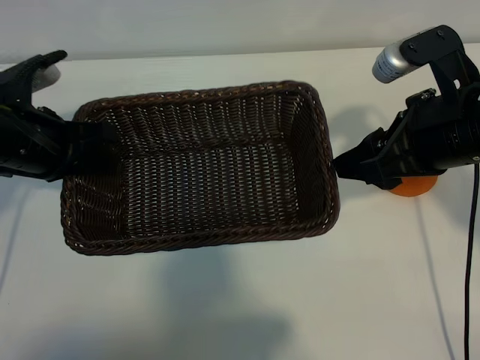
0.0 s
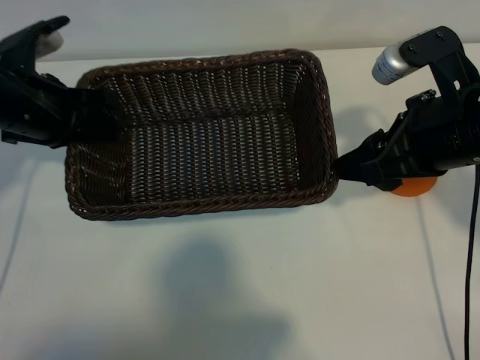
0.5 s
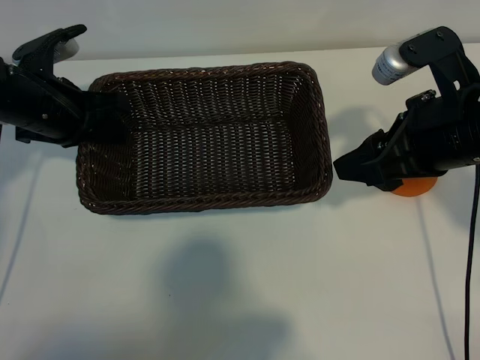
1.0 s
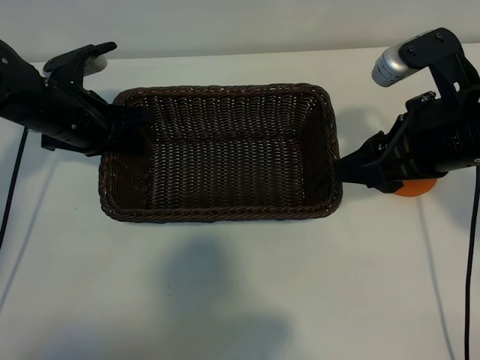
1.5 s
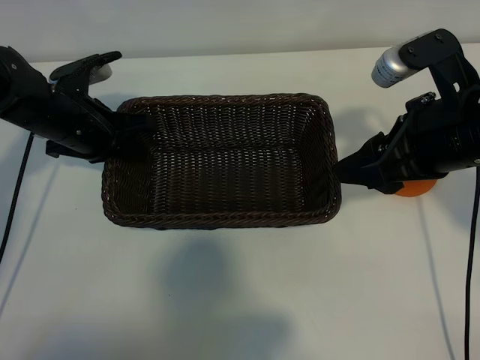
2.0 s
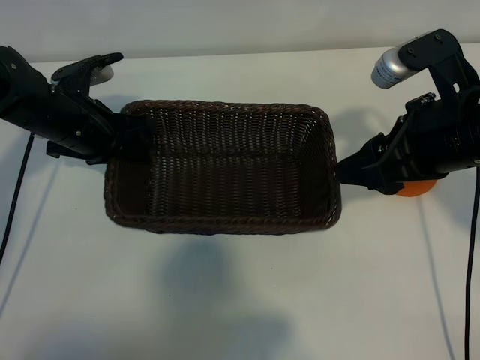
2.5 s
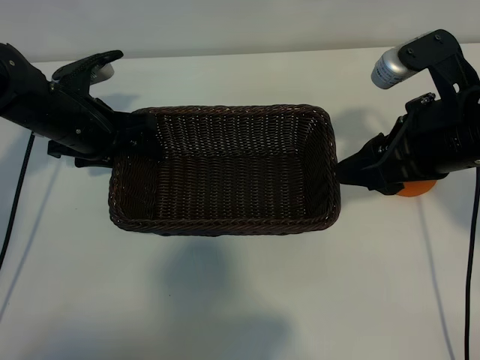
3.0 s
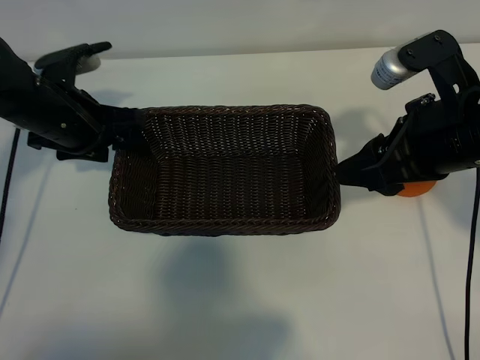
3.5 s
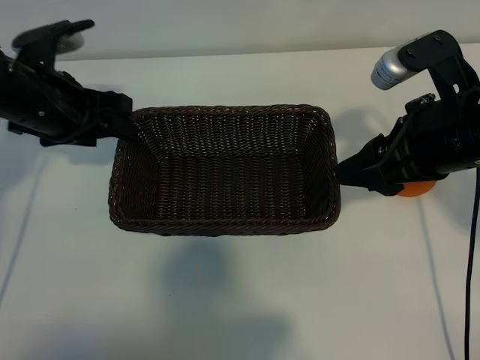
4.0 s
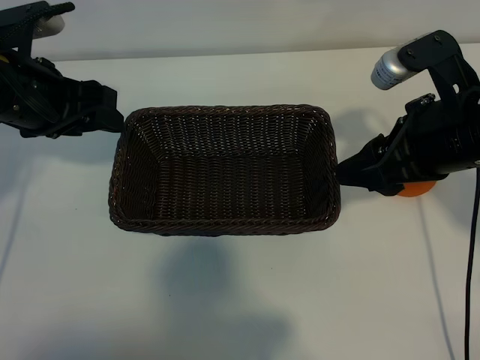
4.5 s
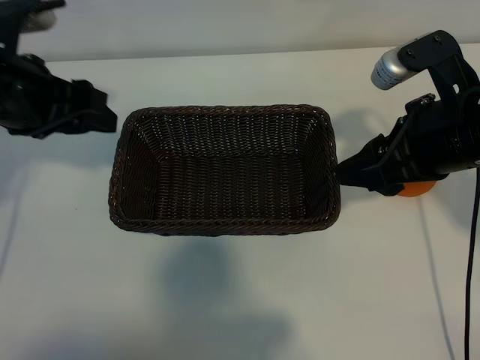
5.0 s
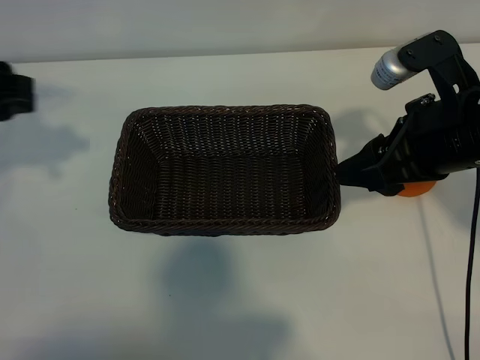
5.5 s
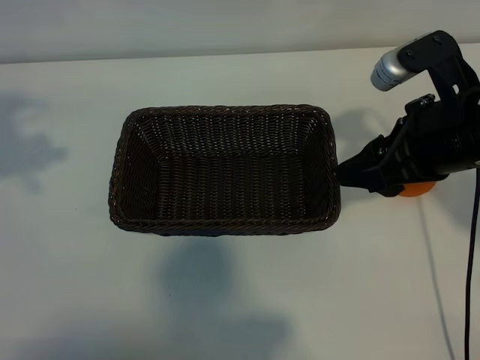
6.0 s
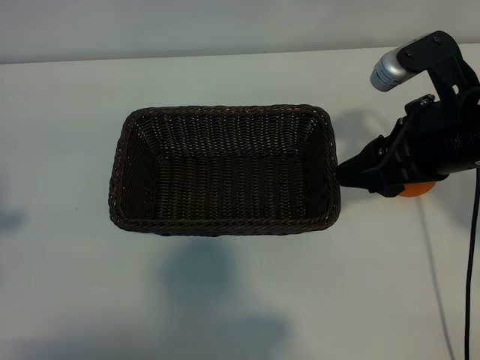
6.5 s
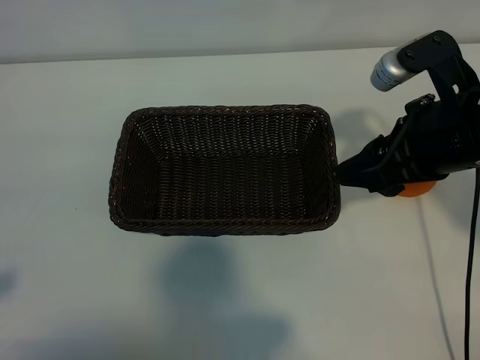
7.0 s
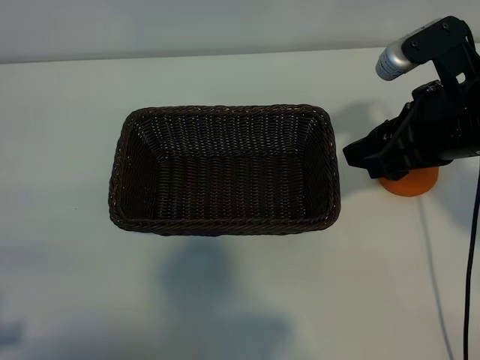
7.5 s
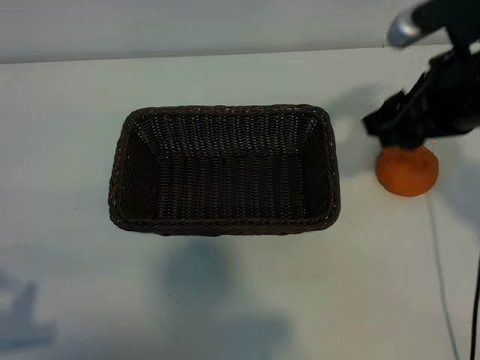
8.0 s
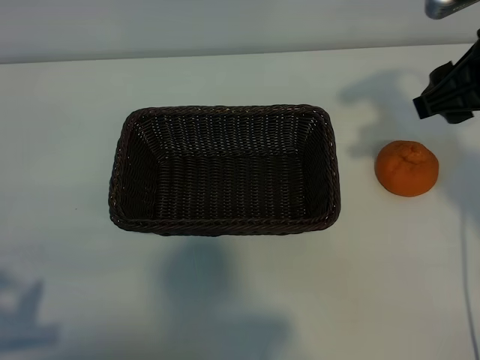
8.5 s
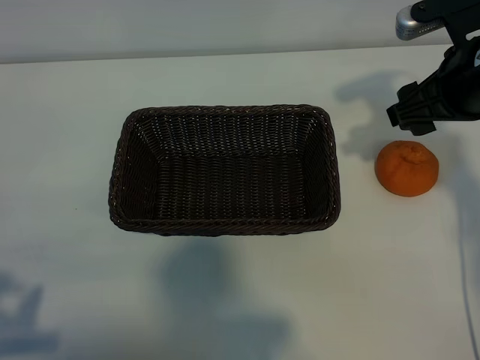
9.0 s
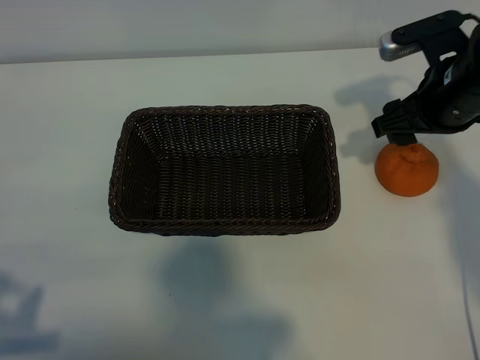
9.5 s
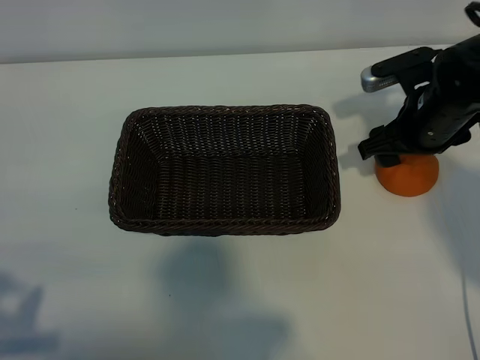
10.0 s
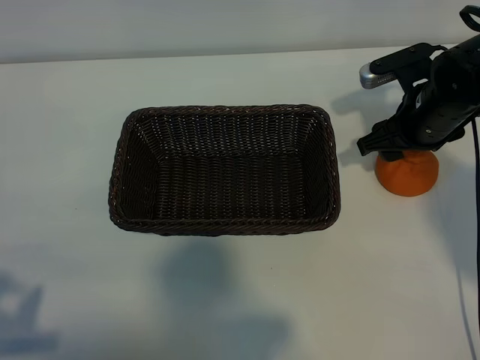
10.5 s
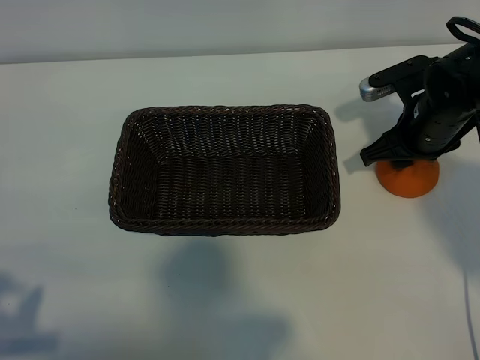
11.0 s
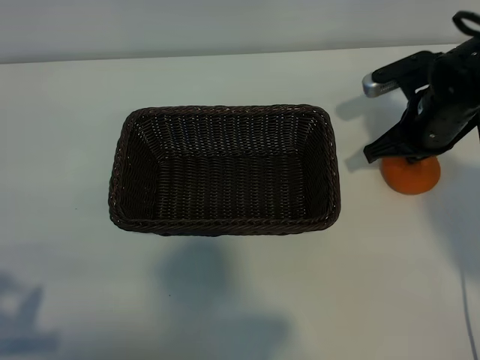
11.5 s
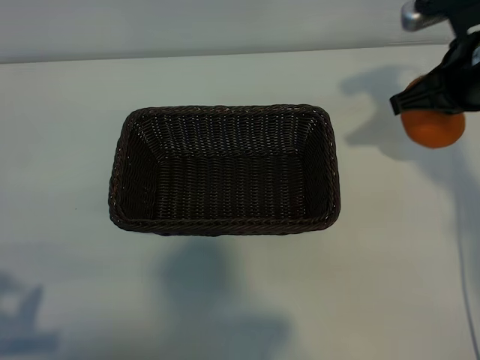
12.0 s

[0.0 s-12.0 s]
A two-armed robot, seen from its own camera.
Task of the whole recording: pick up the orange and put it into the basket.
Step, 0.0 to 2.5 s: Place the basket in the center of view with left gripper.
Step, 3.0 to 11.0 s: Grasp the orange with right gripper.

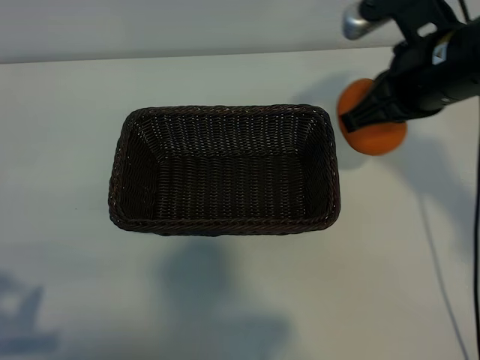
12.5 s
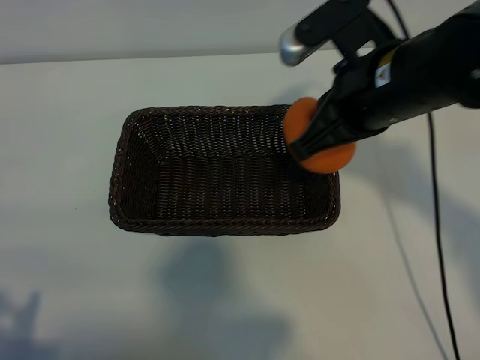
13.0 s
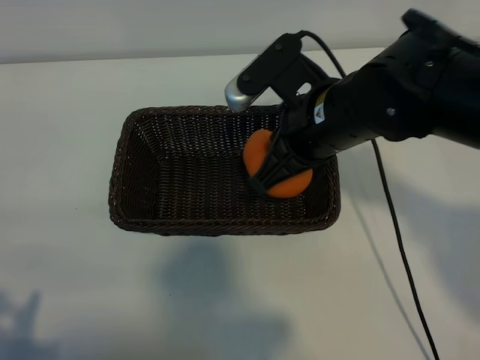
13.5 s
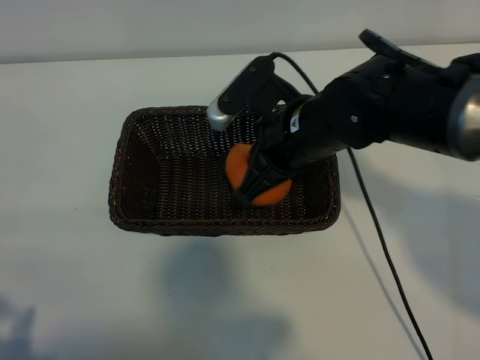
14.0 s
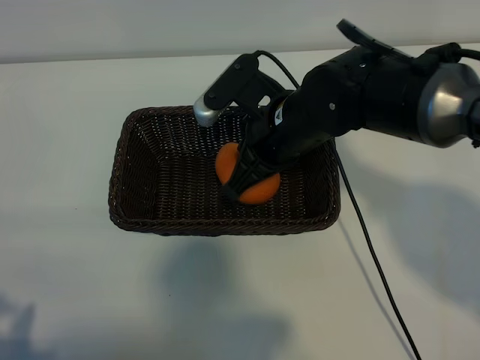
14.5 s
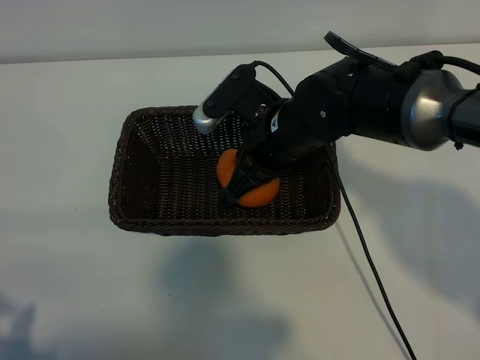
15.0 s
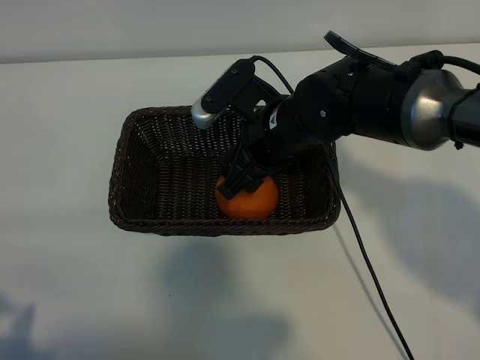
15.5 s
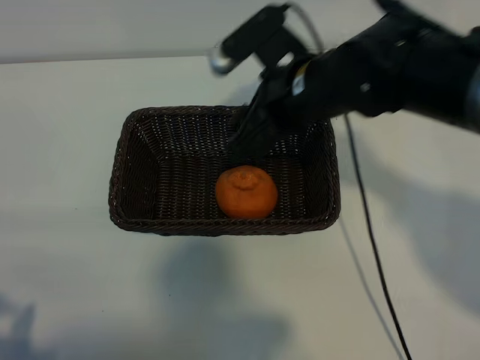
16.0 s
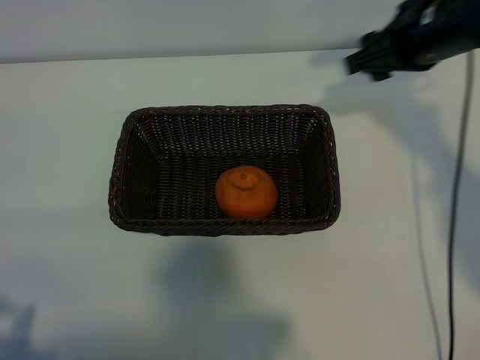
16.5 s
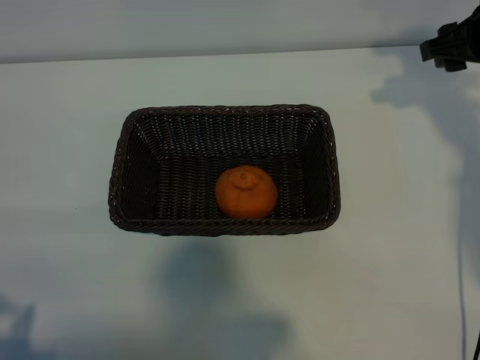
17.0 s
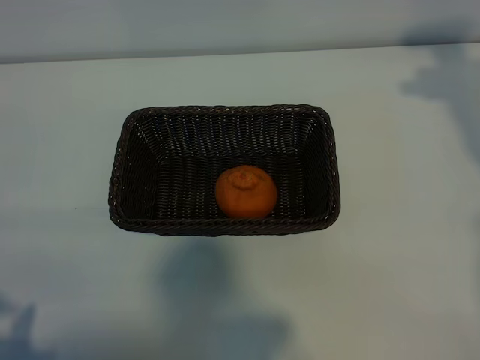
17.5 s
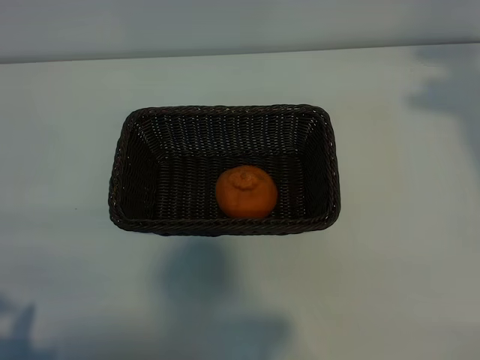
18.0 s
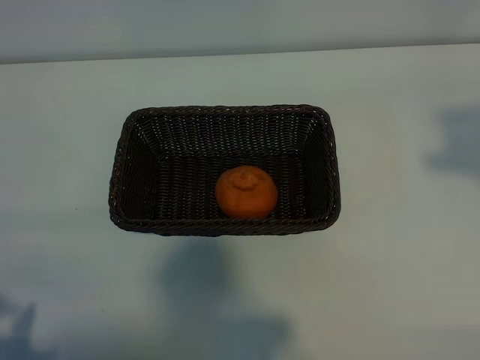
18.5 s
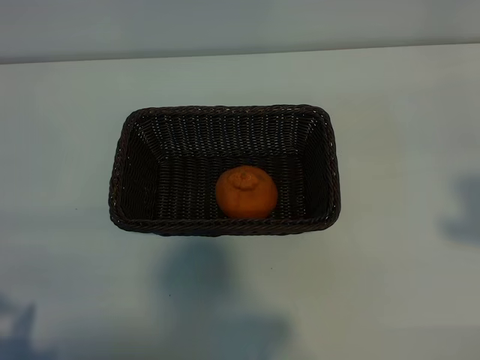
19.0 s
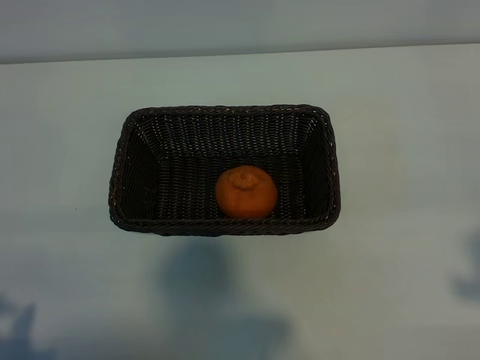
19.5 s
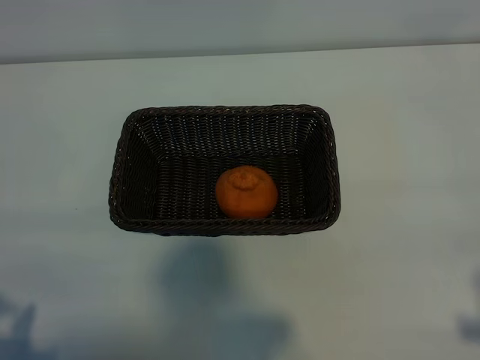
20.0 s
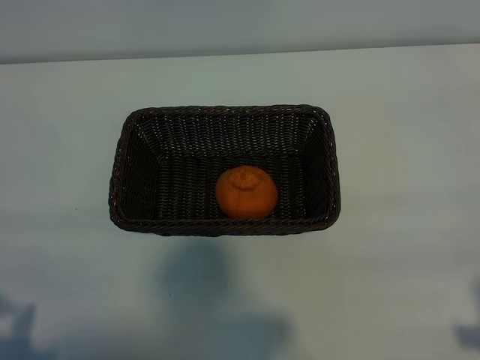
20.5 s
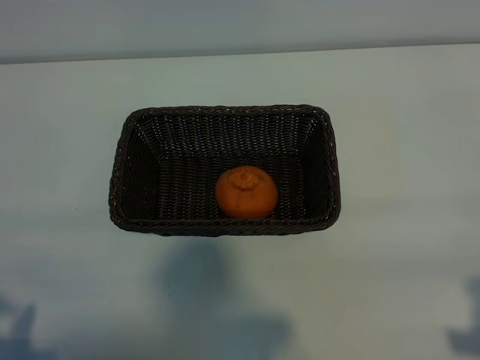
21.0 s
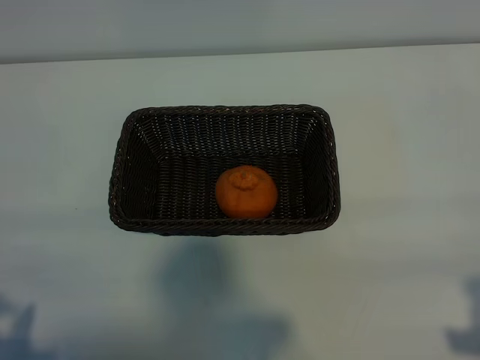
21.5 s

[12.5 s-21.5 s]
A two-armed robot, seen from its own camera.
Task of the whole recording: pick up the orange and put it into the basket.
Step, 12.5 to 15.0 s: Place the orange in the basket with right gripper.
